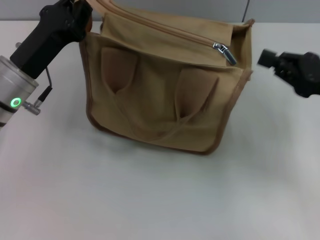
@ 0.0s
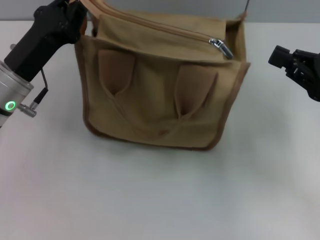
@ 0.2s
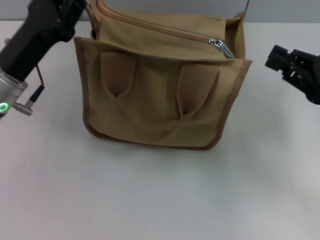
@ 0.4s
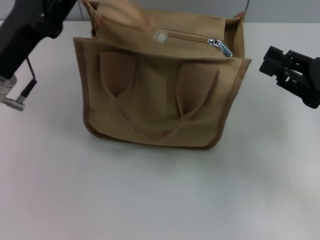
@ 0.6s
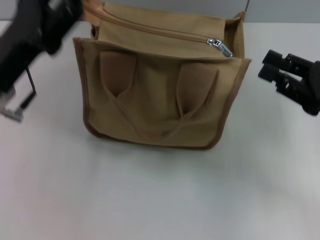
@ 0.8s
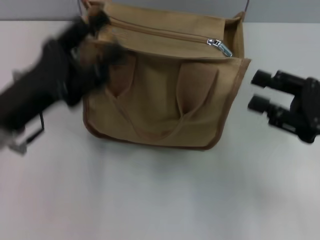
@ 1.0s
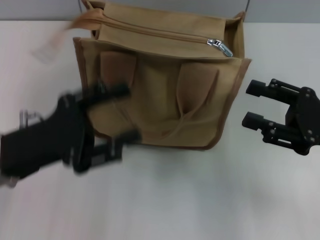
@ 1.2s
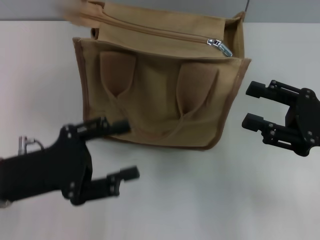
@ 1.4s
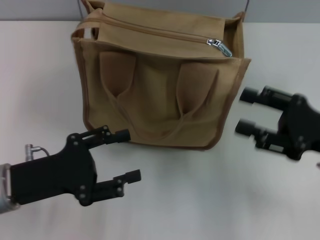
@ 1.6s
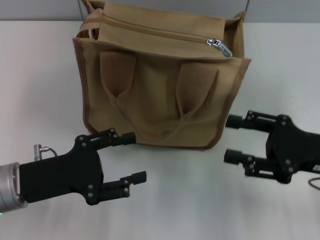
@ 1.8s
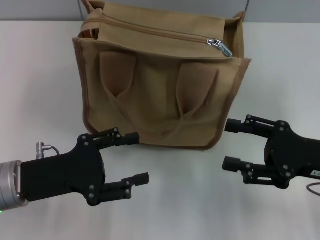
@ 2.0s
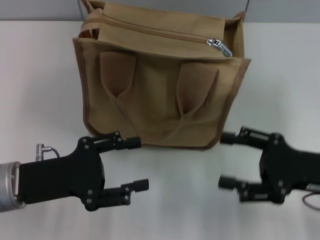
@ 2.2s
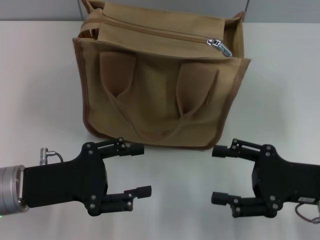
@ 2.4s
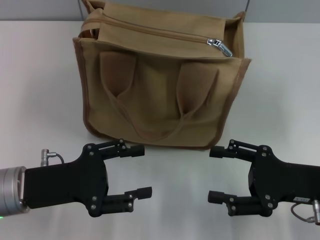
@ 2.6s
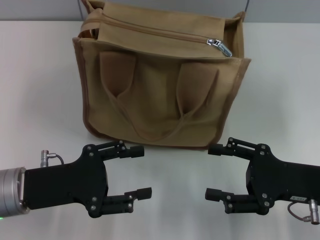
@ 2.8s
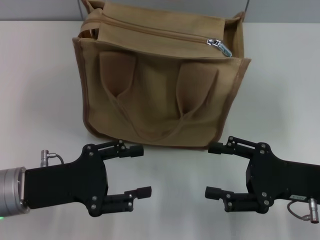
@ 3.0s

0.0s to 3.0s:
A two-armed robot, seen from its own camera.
Step, 0.0s to 0.8s: Grab the zipper with your left hand.
0.0s to 1.6s: The left gripper goes about 10 cm backward, and opens up, while the right gripper changes place by roughly 5 cm, and opens.
1.6s to 3.0s: The right gripper shifts by about 5 cm.

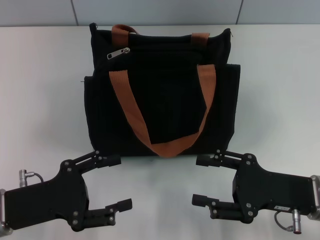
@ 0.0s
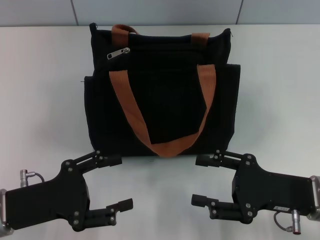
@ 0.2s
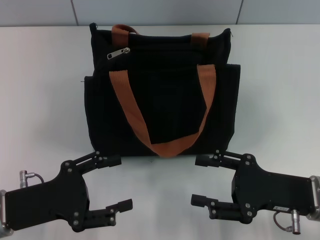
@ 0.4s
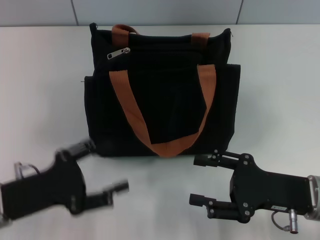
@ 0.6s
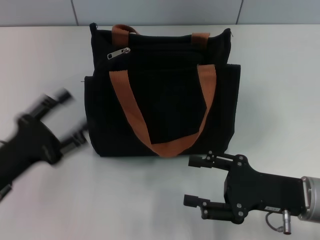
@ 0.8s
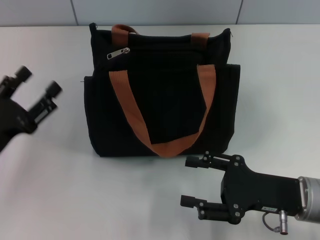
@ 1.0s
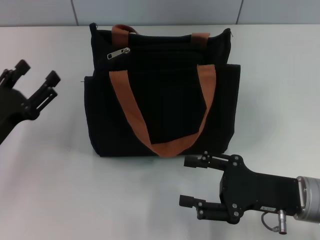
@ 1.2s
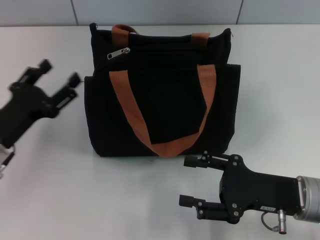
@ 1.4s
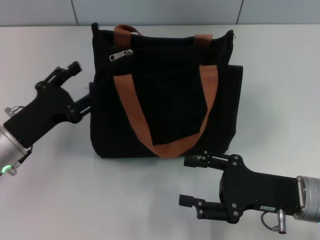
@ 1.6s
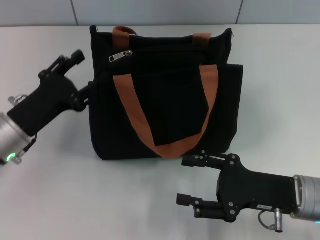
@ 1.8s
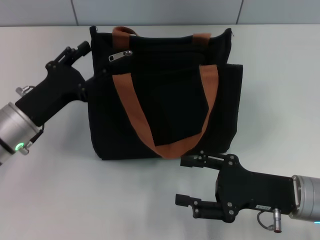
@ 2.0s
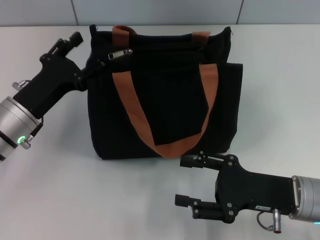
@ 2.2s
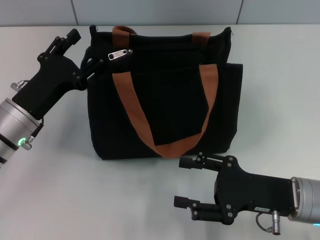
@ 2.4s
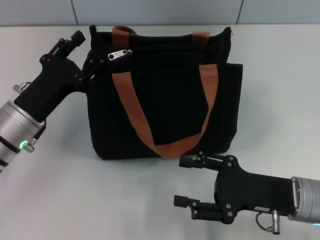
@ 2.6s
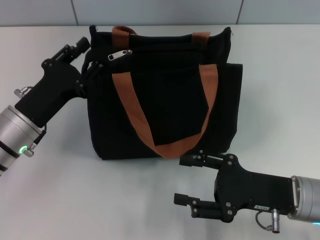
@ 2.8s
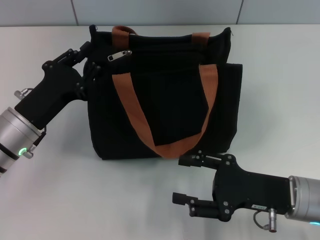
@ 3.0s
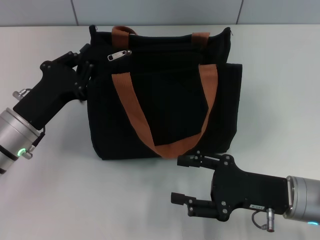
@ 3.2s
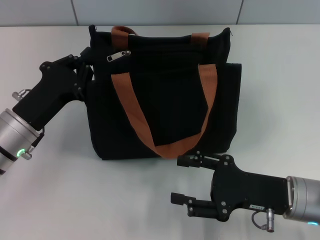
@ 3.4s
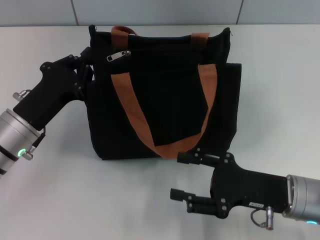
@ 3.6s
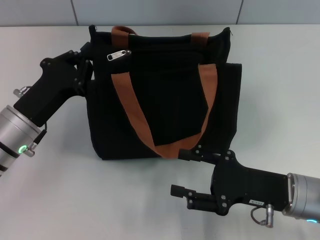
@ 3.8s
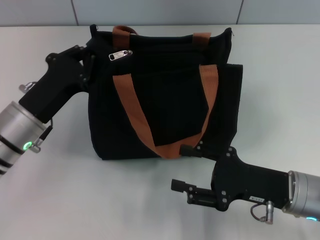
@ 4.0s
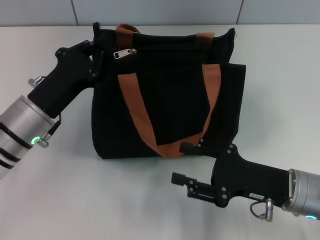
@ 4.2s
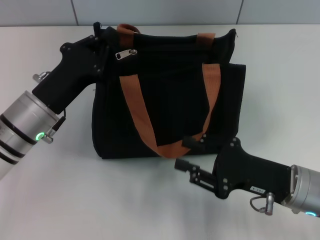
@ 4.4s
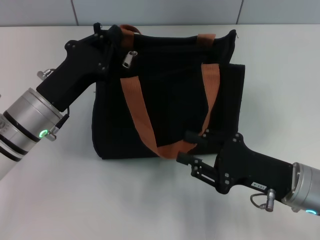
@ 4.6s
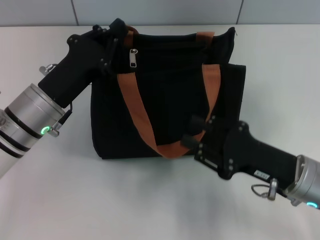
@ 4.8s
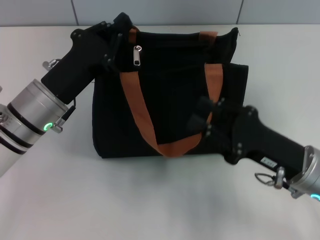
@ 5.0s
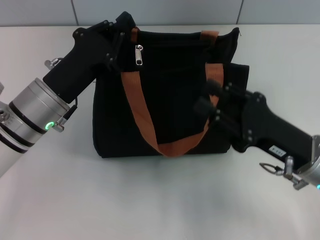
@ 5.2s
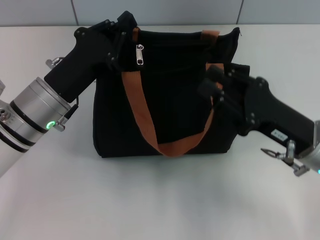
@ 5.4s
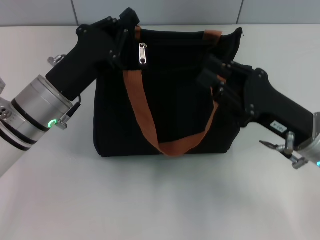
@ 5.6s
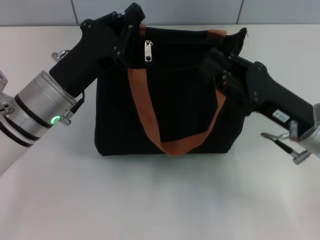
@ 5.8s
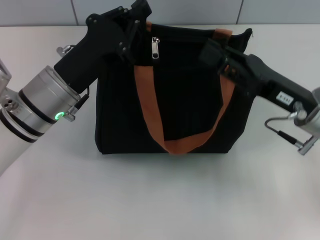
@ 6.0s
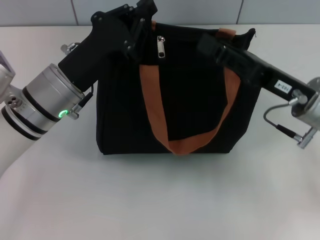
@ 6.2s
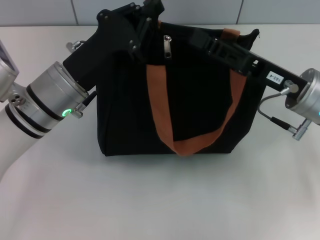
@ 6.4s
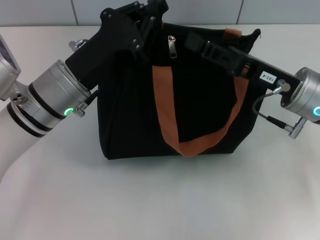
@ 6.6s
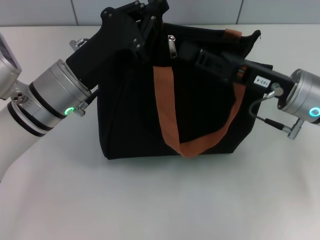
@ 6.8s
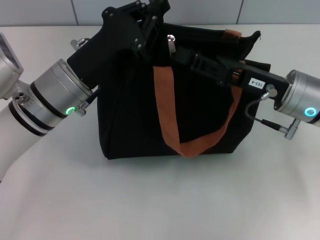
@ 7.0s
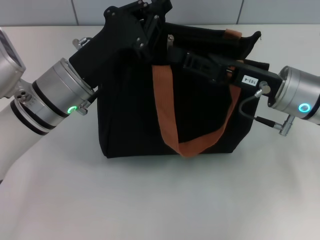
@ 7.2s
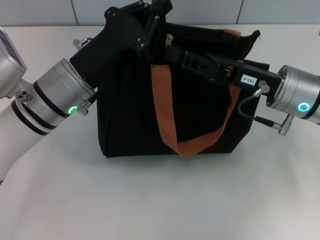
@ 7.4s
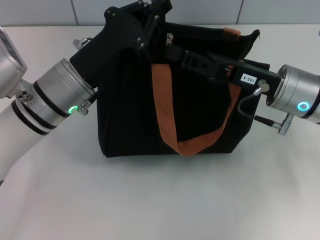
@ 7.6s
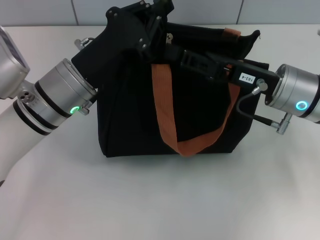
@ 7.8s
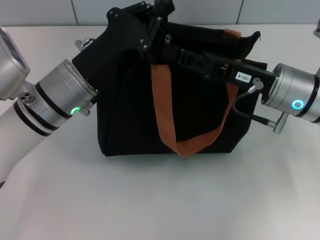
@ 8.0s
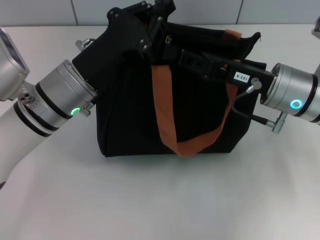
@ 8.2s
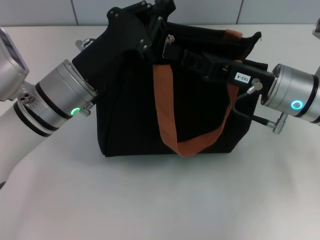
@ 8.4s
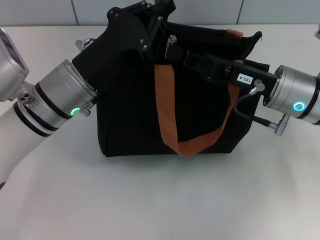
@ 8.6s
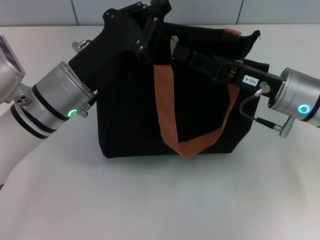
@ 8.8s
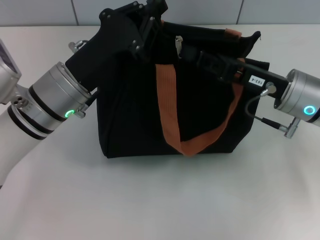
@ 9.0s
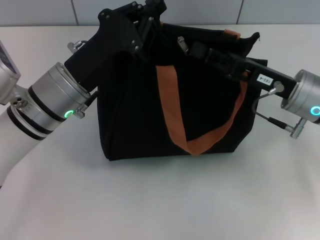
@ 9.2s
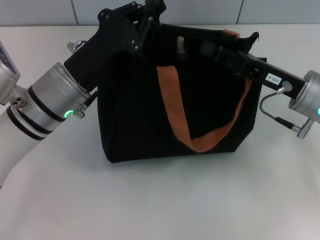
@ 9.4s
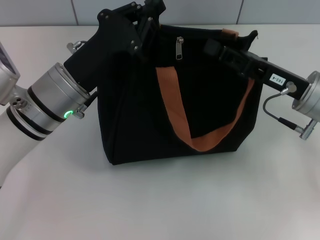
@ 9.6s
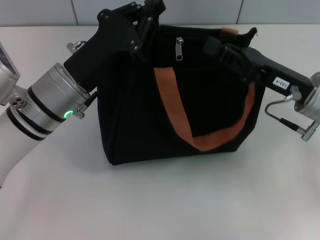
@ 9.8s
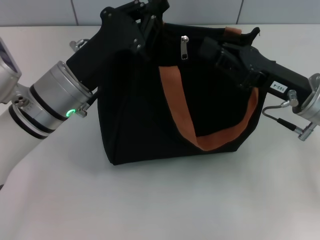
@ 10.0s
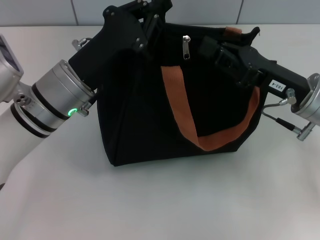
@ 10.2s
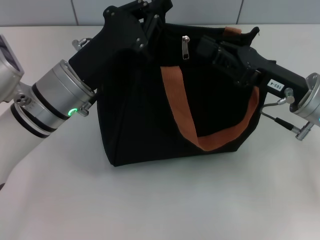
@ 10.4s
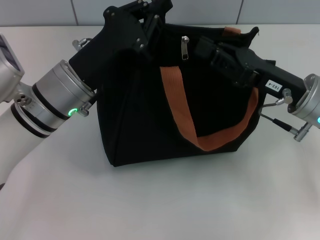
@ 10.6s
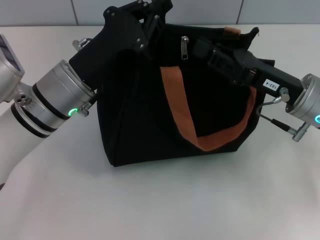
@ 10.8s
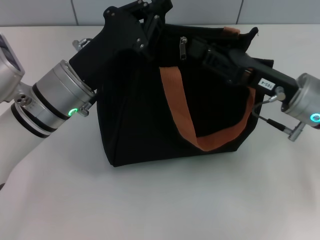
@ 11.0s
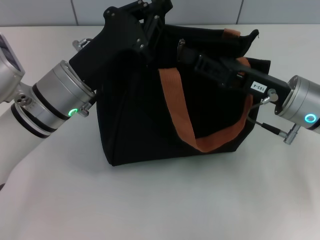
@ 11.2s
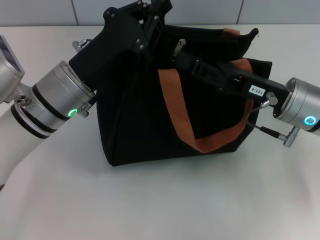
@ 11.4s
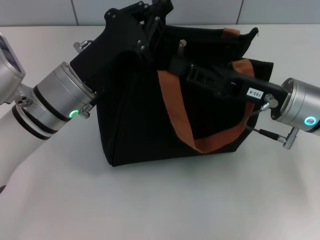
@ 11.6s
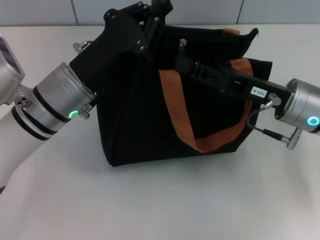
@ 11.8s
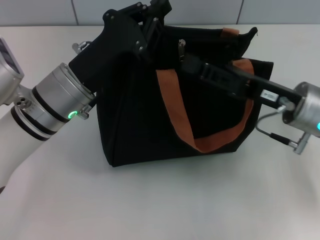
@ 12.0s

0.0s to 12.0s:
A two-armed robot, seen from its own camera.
0.0s to 1.6s: The left gripper heads forward, covering roughly 5 cm.
1.6s to 3.0s: The left gripper closes up.
3.0s to 4.4s: The left gripper closes.
4.4s to 6.0s: The right gripper travels forward and upward by some 10 cm, and closes its fingers.
7.6s to 9.0s: The right gripper closes its fingers.
9.0s to 12.0s: The grippers make only small movements.

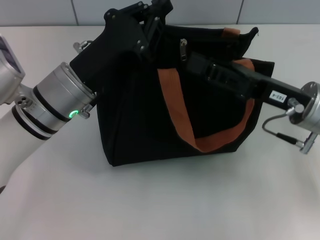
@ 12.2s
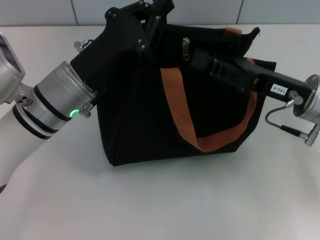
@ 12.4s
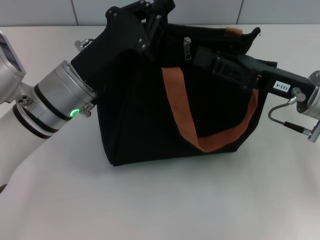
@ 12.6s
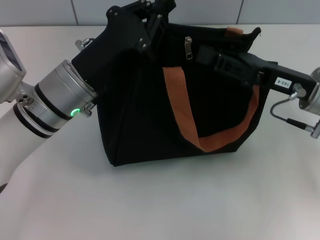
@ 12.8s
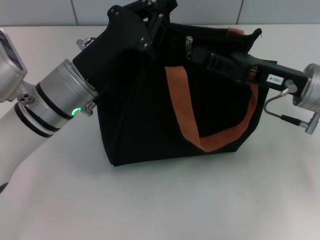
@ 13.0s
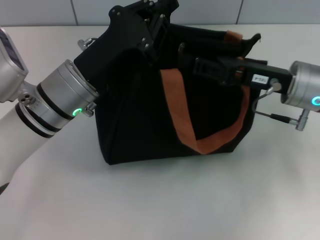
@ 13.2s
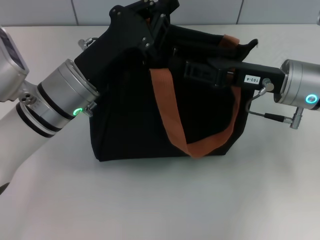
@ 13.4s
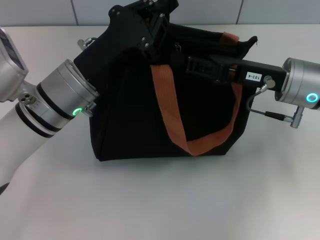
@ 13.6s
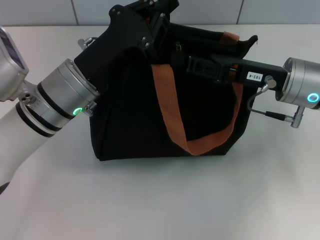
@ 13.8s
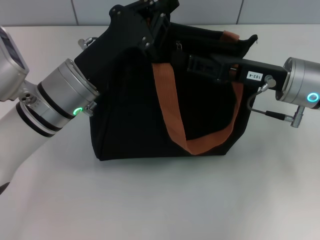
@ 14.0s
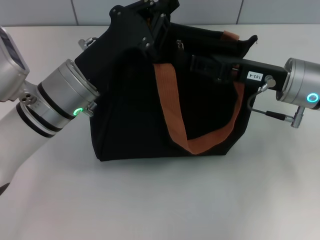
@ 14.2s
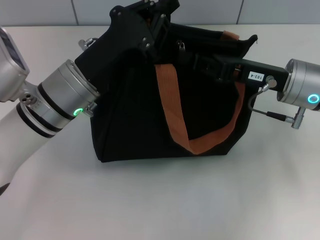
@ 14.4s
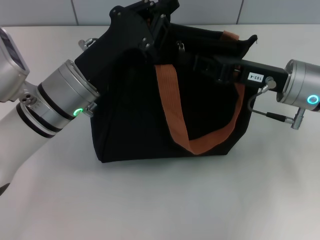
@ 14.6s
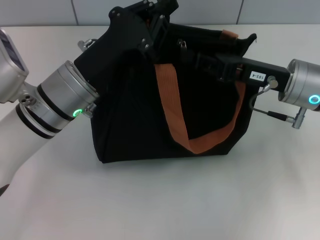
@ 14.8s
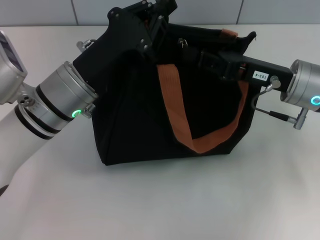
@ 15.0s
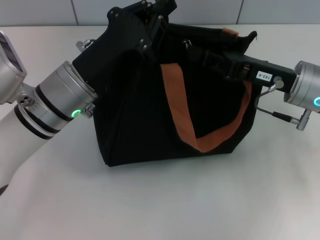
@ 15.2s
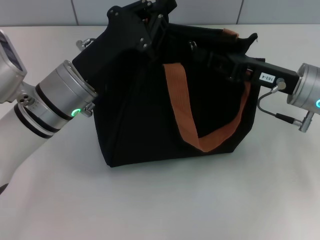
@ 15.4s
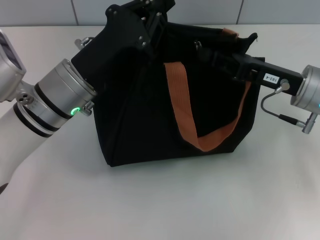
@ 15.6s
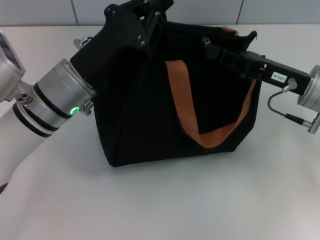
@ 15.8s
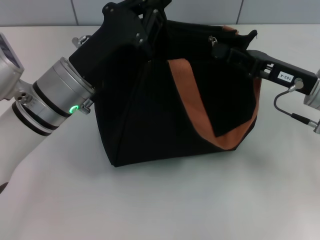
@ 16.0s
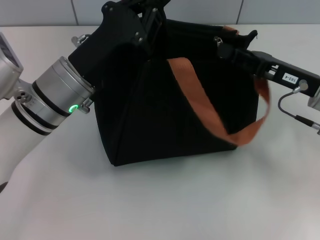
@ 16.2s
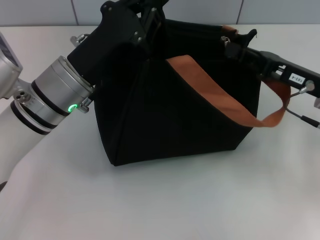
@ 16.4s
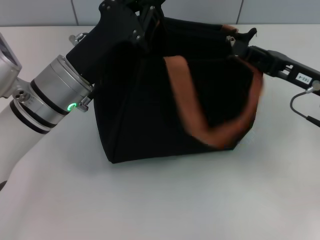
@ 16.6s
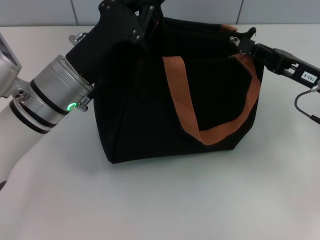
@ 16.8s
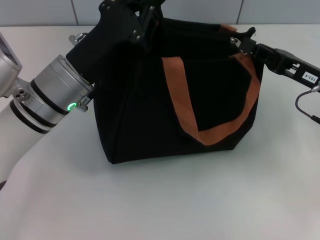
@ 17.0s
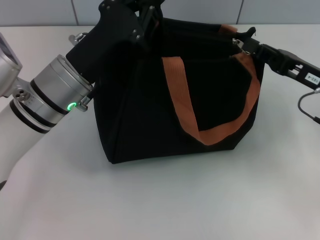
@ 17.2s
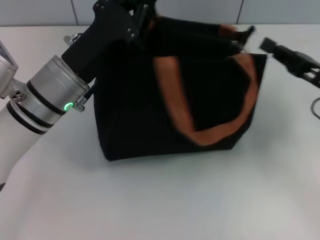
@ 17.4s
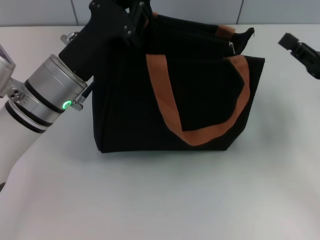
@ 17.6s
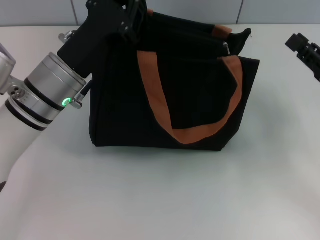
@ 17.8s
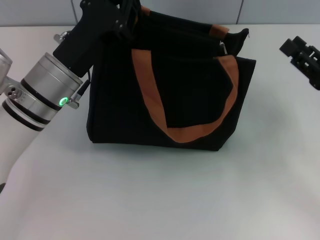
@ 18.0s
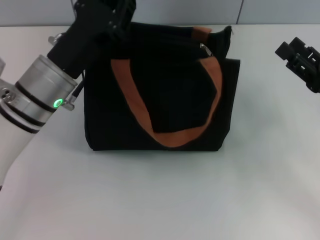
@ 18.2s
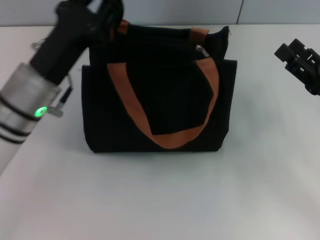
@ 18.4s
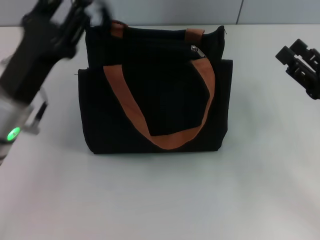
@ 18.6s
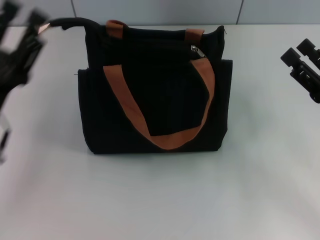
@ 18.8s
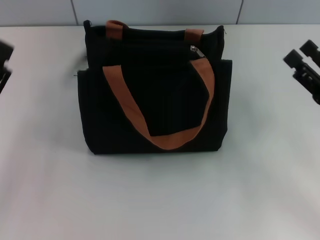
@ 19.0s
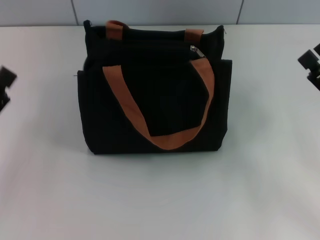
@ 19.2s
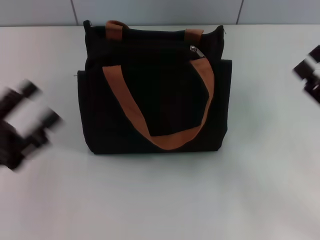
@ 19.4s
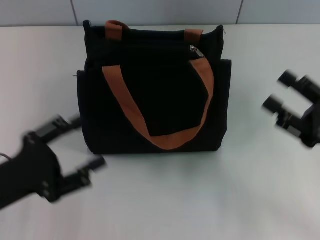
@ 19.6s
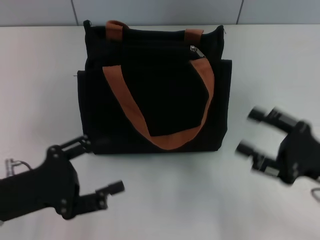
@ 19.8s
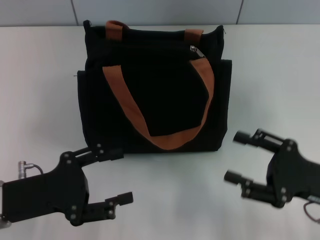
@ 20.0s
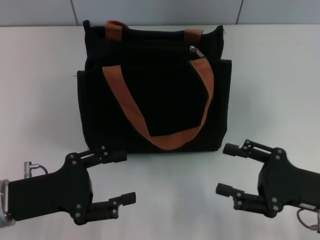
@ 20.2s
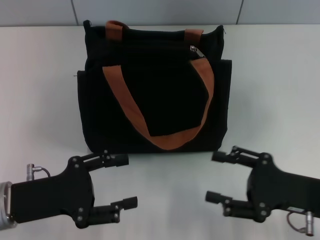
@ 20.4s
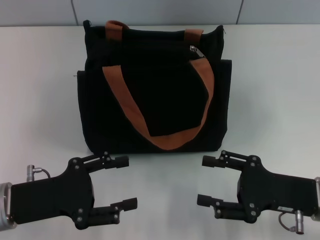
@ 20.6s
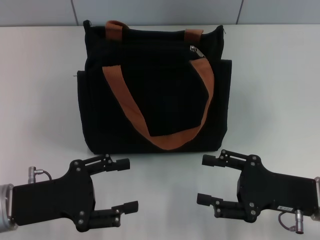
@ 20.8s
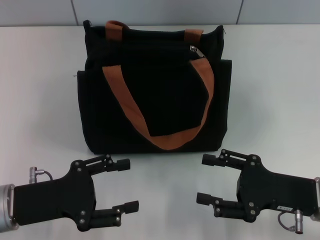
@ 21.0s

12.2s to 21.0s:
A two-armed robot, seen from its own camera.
Step, 12.2s to 17.2s: Pull up the zipper with your right hand.
Step, 17.6s to 18.8s: Grab the zipper with your left hand.
12.2s to 15.2s: The grippers stay close to where they were, moving slightly.
15.2s to 16.6s: The right gripper travels to the right by some 5 cm.
16.6s to 18.0s: The right gripper shifts by roughly 5 cm, and opens.
18.0s to 19.6s: The right gripper opens up. The left gripper travels backward and to the left by some 15 cm, and opens.
19.6s to 21.0s: The right gripper shifts roughly 5 cm to the left.
